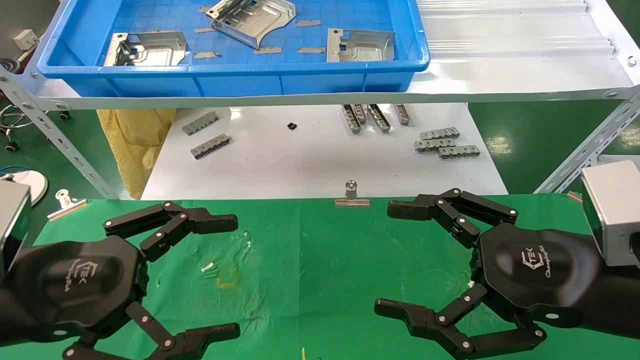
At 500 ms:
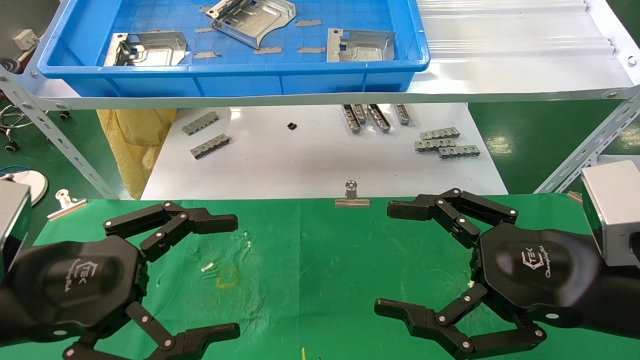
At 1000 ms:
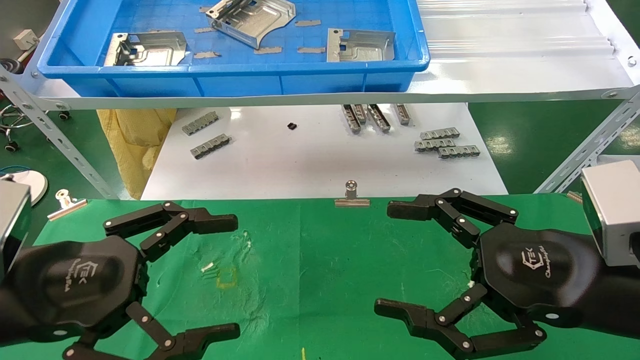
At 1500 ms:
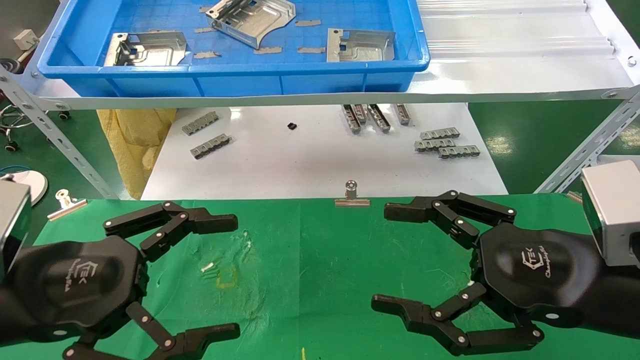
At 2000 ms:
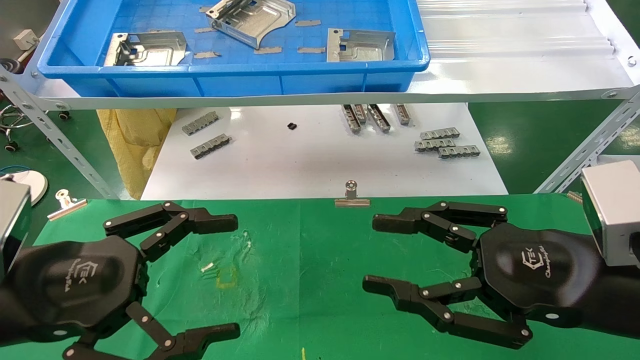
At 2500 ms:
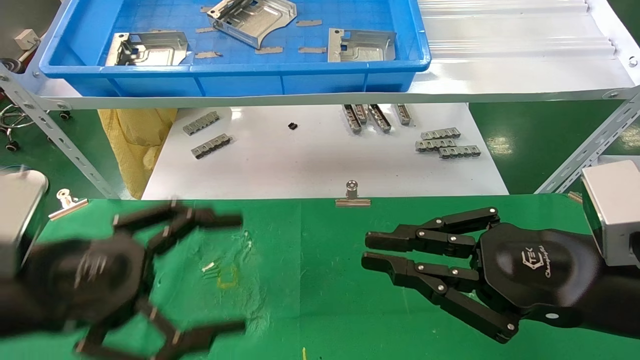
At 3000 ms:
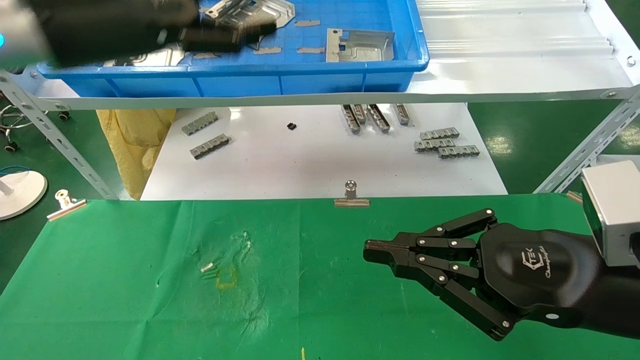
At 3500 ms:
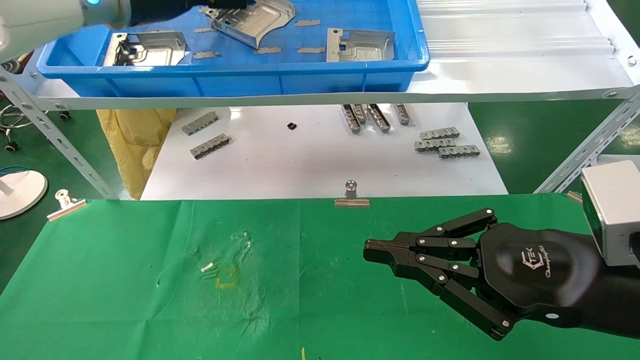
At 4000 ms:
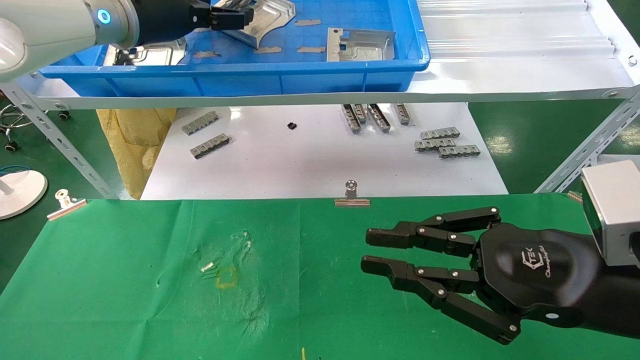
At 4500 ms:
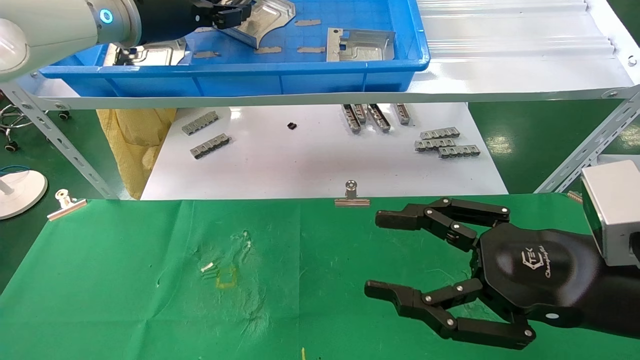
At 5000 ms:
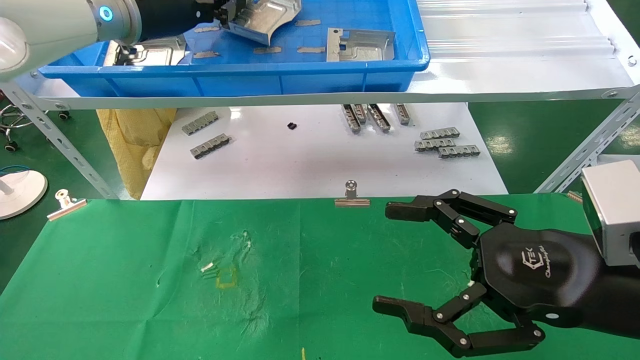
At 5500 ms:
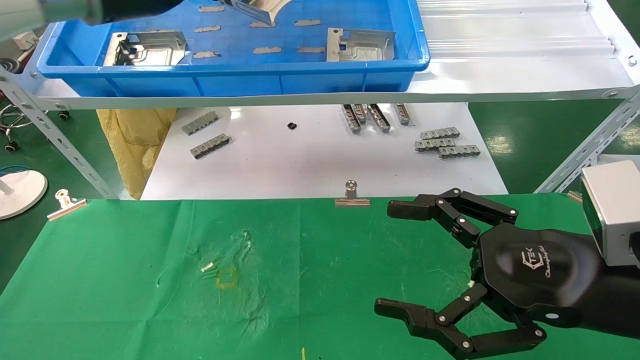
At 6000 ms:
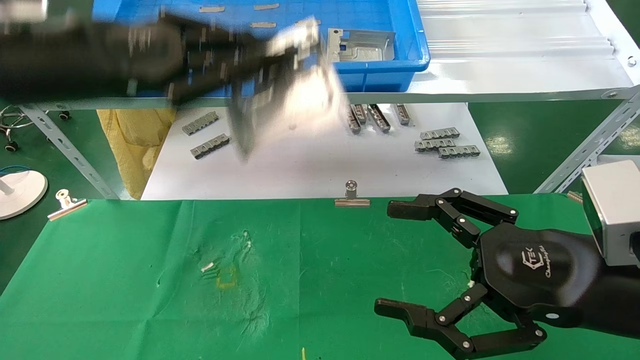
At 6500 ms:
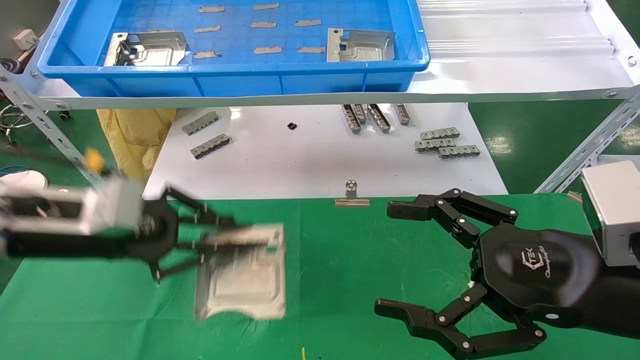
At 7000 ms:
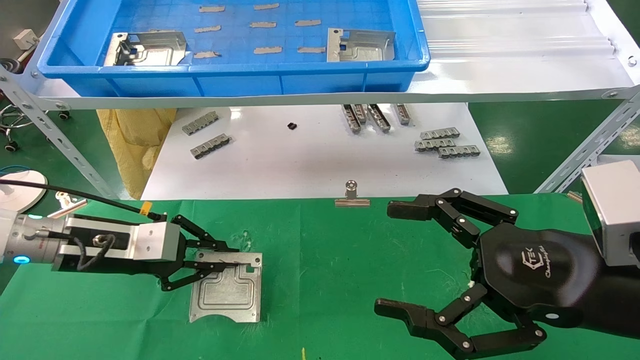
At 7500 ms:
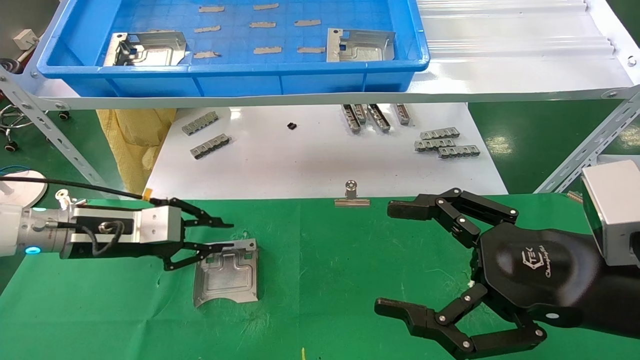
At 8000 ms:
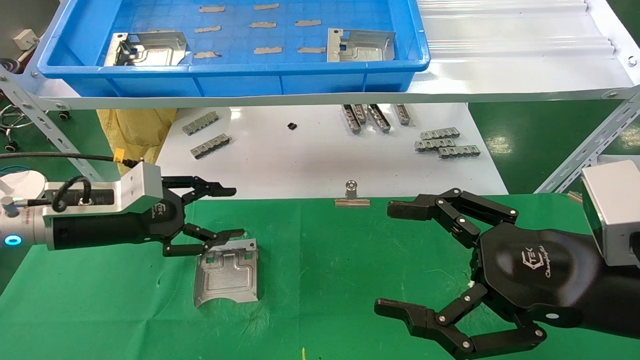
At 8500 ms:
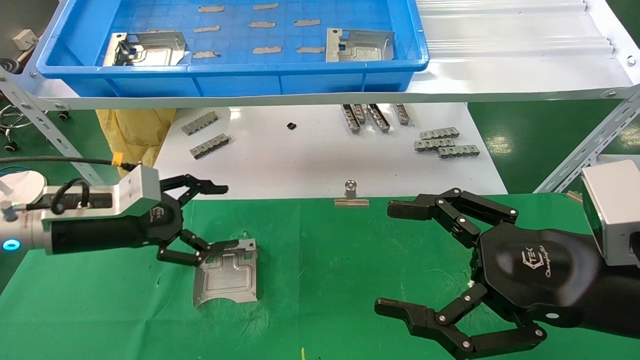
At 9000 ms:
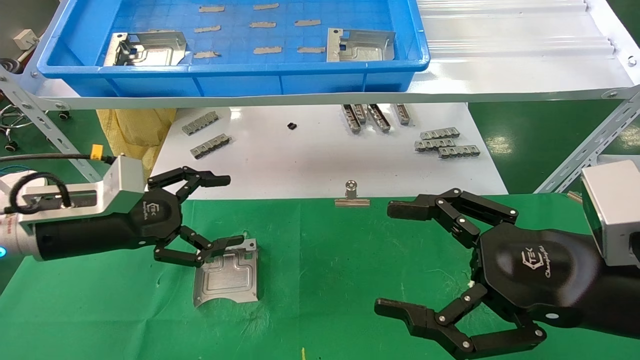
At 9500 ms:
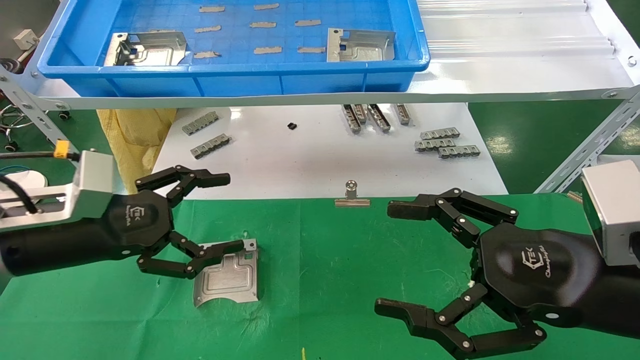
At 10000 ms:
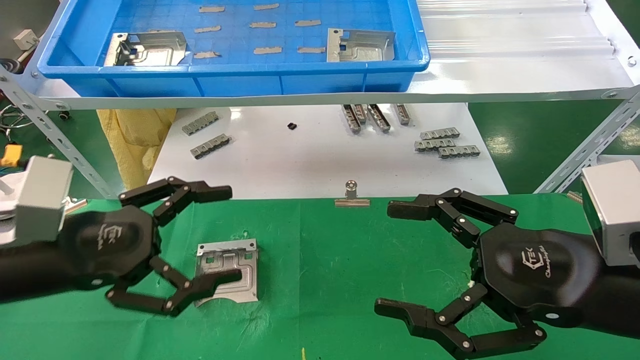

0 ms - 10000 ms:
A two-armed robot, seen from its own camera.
Task of the whole recording: use the mechanical arm to pick up the parts and place them on the table.
Step, 3000 ms - 4500 ms: Pick up the hard drive bracket from the feeding area.
Step, 5000 ms - 7000 ms: Place the hard drive bracket into the box.
0 ms - 2000 ms: The right gripper closes up.
2000 ms - 4000 ms: The left gripper shifts some 35 cm forward and upward. The right gripper closes its fingers.
4000 ms - 6000 ms: The left gripper heads backward and downward, covering about 15 cm, and closes up. The right gripper opens.
6000 ms - 8000 ms: The left gripper shifts about 20 cm downward, and opens.
8000 ms - 10000 ms: The left gripper travels backward by some 10 cm, and opens its fingers.

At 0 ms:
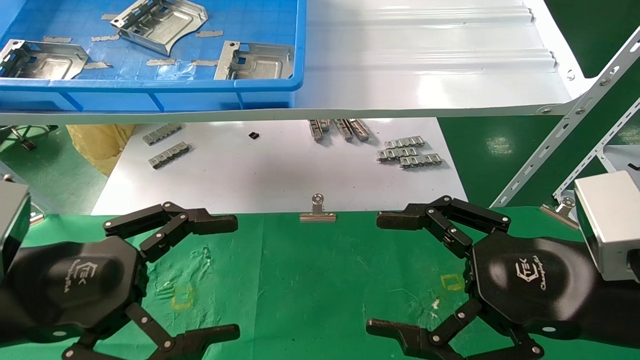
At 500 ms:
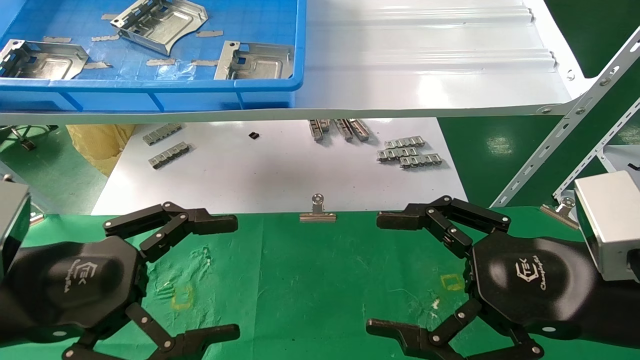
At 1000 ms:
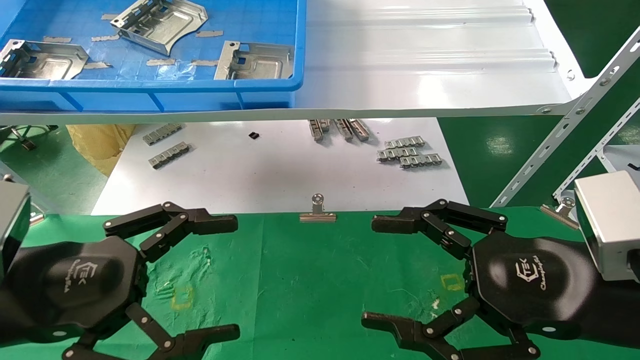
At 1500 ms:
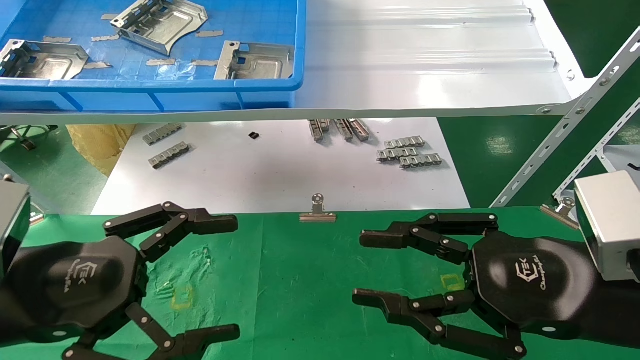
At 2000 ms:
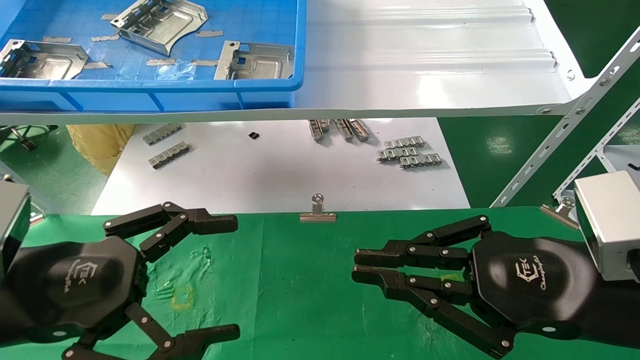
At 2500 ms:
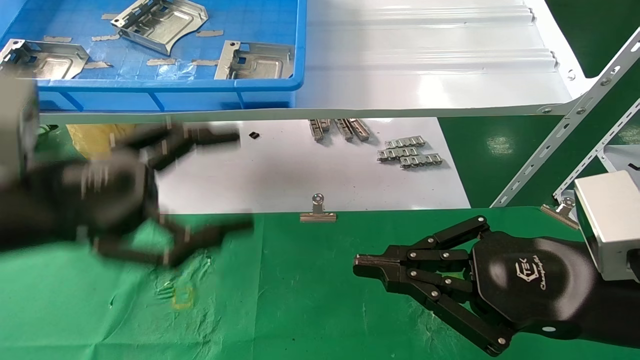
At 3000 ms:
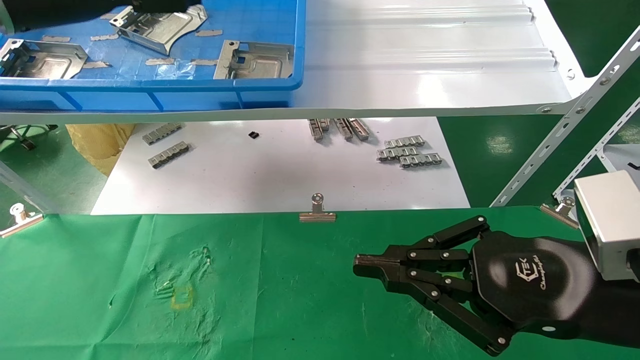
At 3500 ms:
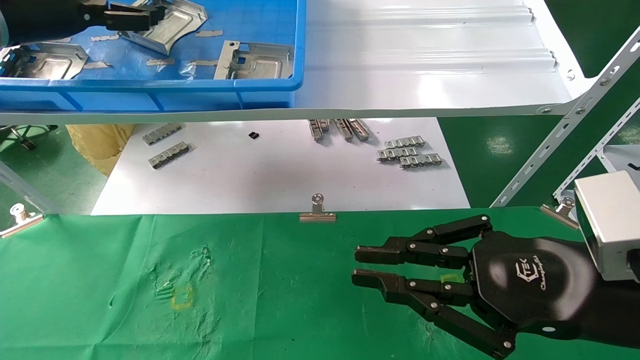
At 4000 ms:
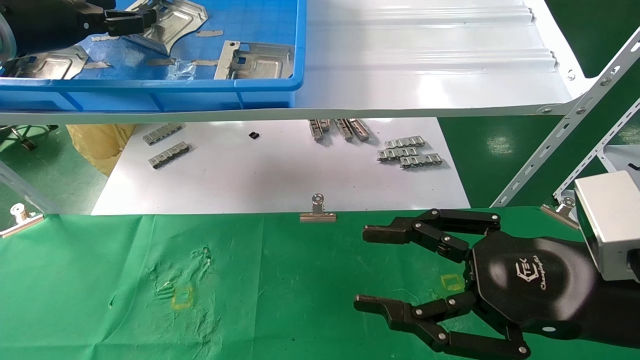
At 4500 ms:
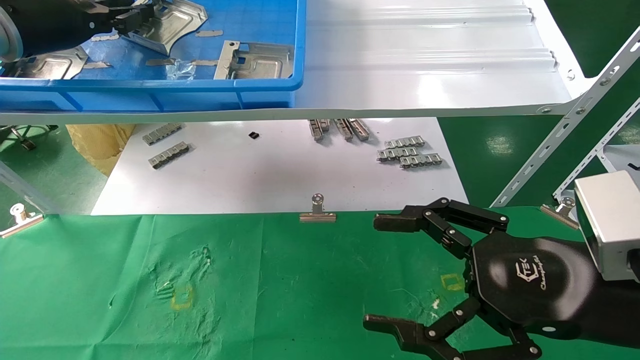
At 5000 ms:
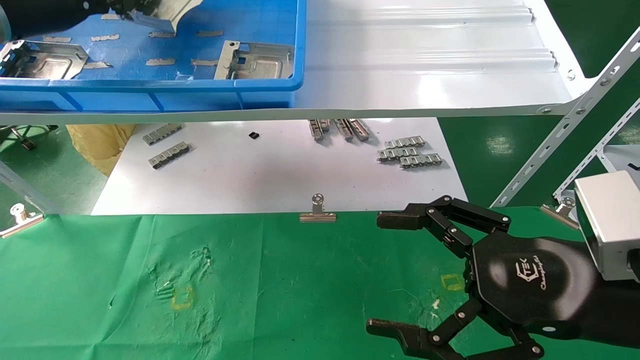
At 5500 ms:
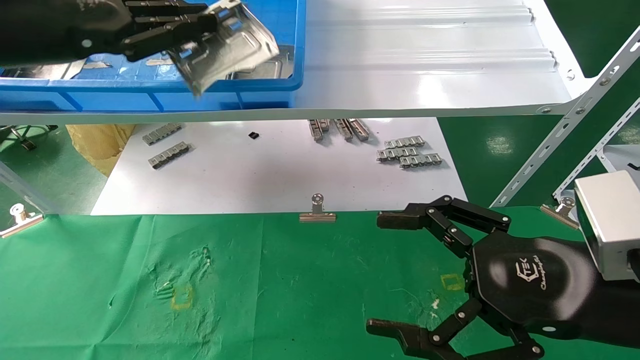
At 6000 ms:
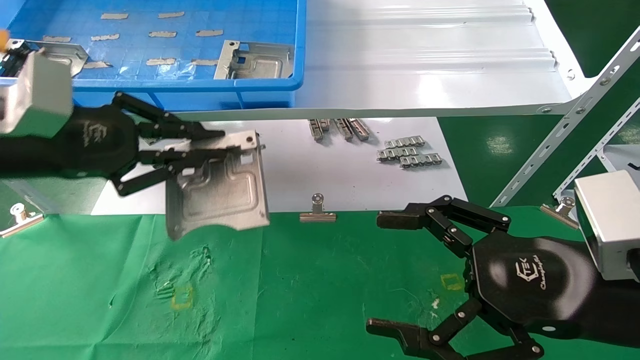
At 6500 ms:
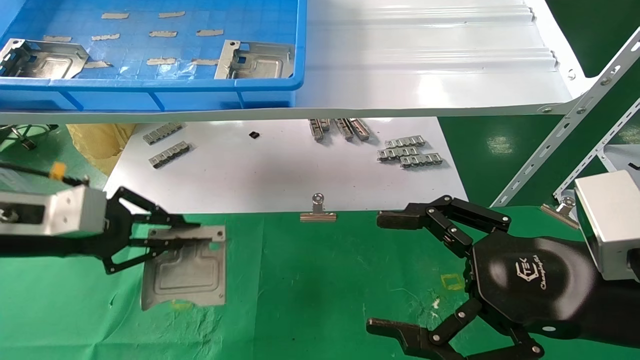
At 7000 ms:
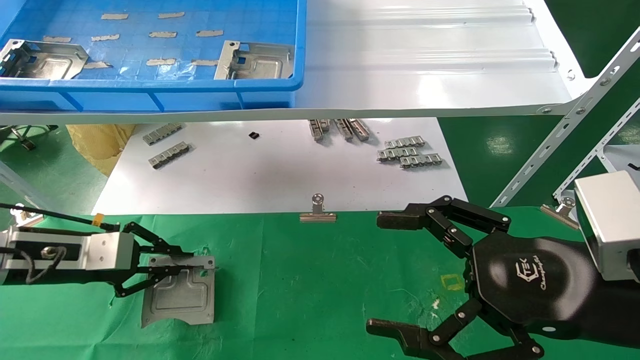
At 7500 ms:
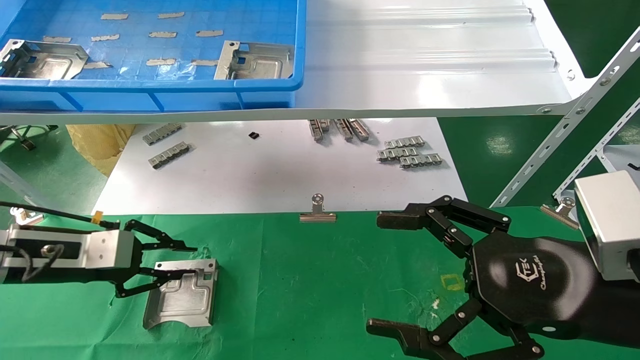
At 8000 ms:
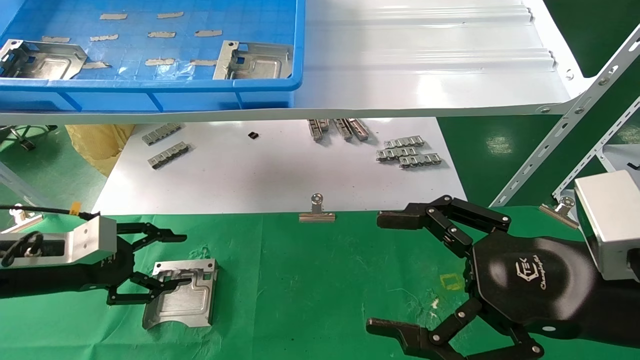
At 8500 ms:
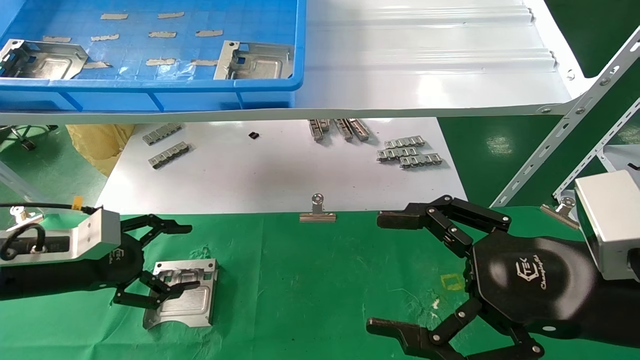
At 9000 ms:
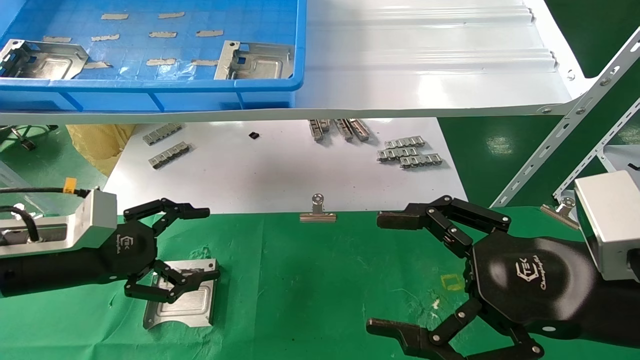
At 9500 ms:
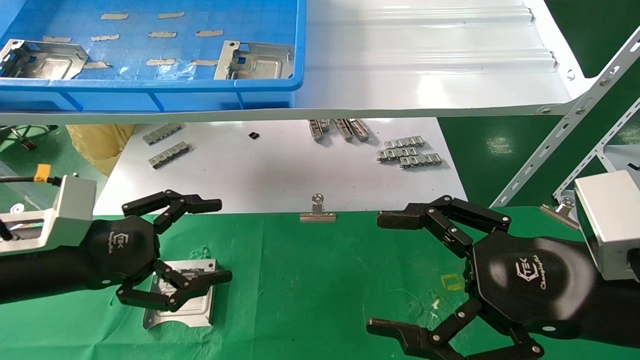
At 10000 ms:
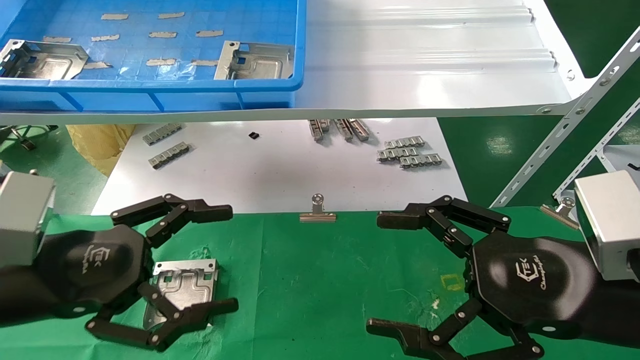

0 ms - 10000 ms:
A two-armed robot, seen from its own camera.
Task of the whole recording: use the mechanical arm to pick up the parts and place them on the table.
Step, 3000 ms - 4500 ms: Pick up the hard drive bracket from the feeding area.
Step, 5000 ms - 7000 ms: Place the hard drive bracket into the box.
0 ms - 2000 ms: The right gripper closes up.
2000 ms - 4000 ms: The left gripper is displaced forward and upward by roughly 30 cm.
4000 ms - 6000 ms: The right gripper opens its fingers; the left gripper shifts approximately 15 cm backward and downward, and closes up.
6000 ms - 8000 ms: The left gripper shifts about 20 cm downward, and opens its fingers.
8000 ms - 10000 ms: The left gripper shifts about 15 cm backward, to the right and upward, and opens.
